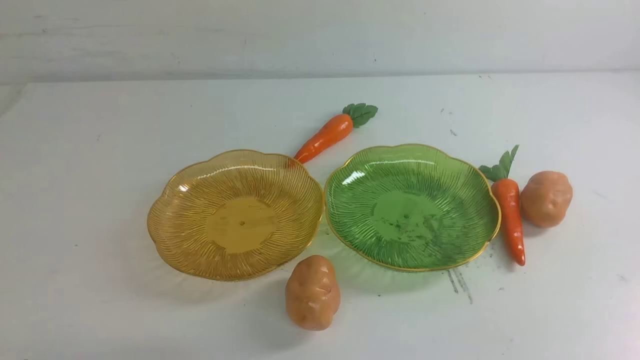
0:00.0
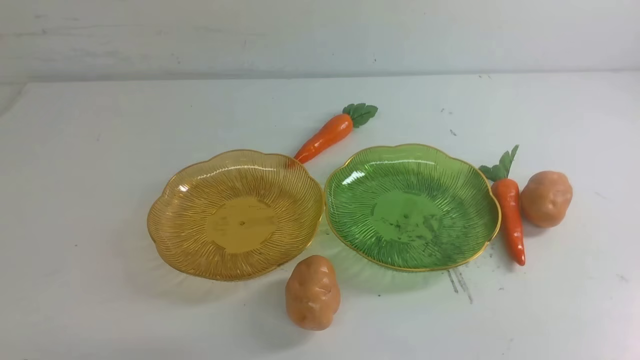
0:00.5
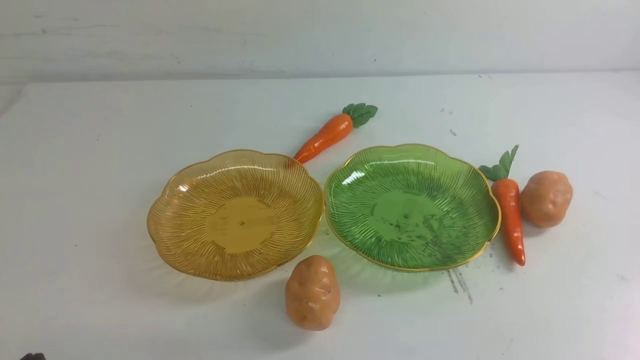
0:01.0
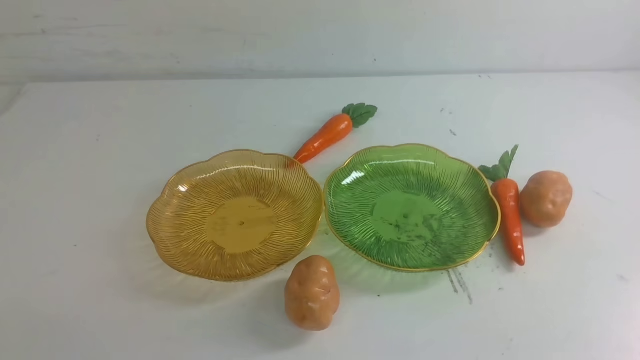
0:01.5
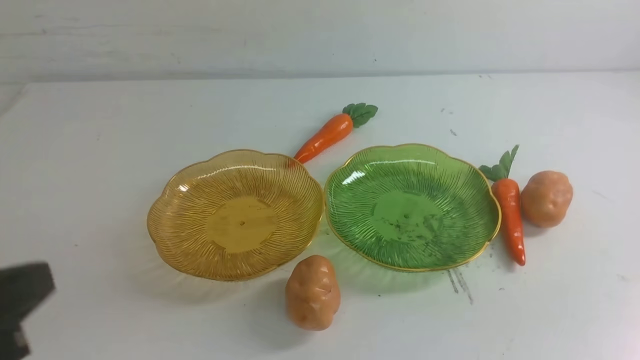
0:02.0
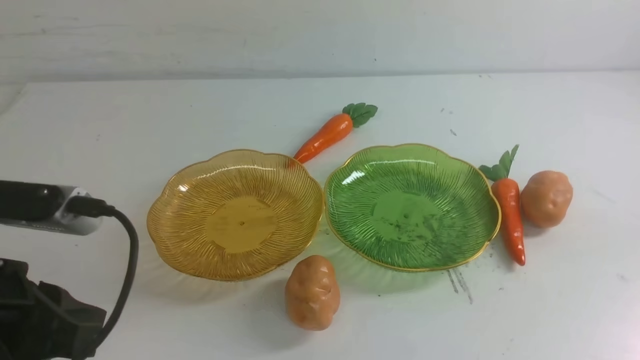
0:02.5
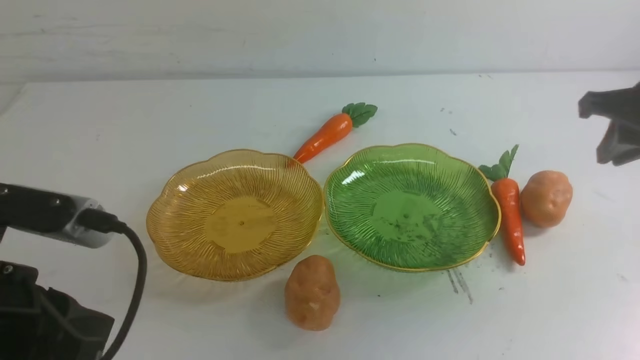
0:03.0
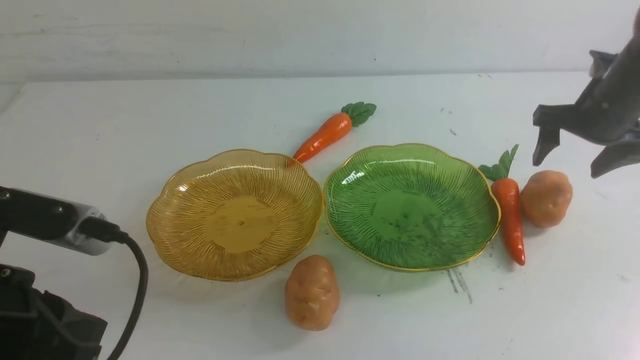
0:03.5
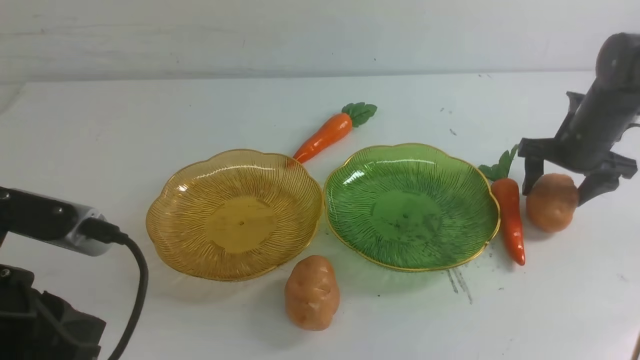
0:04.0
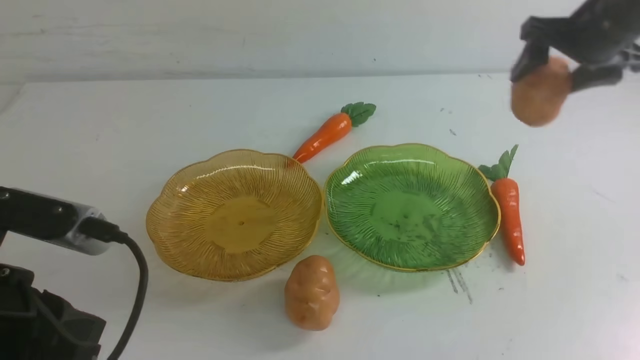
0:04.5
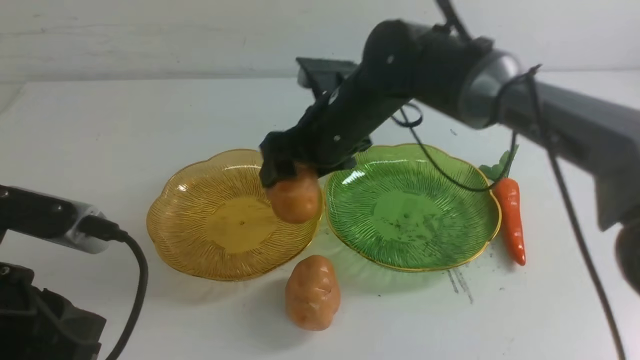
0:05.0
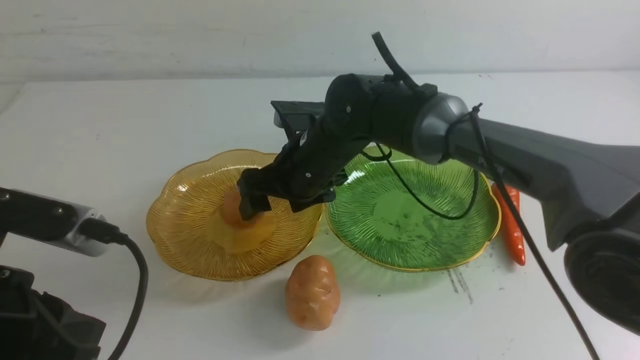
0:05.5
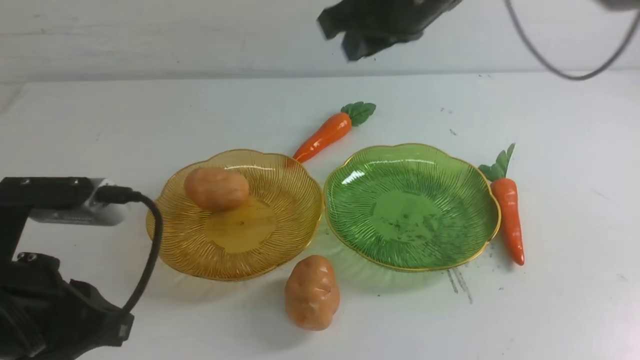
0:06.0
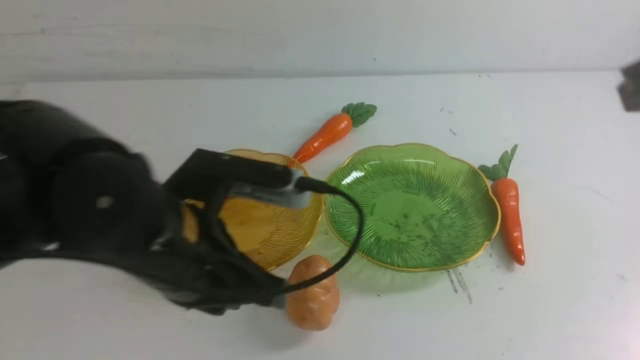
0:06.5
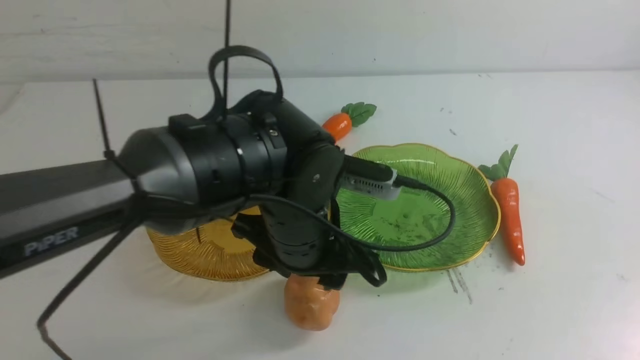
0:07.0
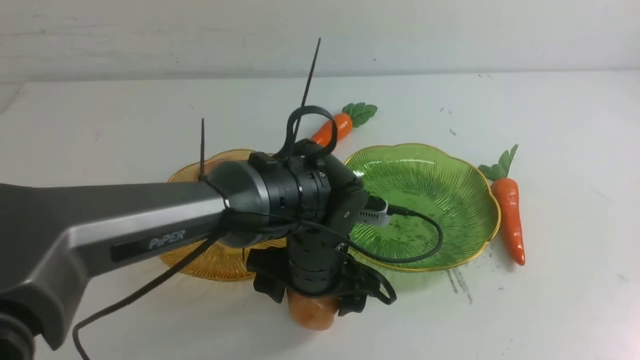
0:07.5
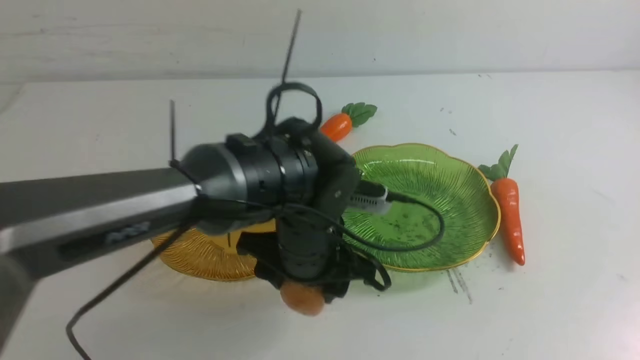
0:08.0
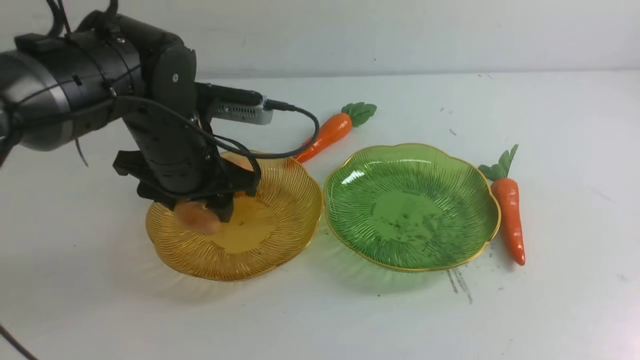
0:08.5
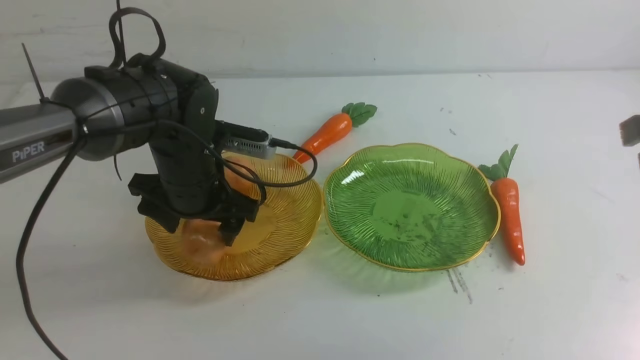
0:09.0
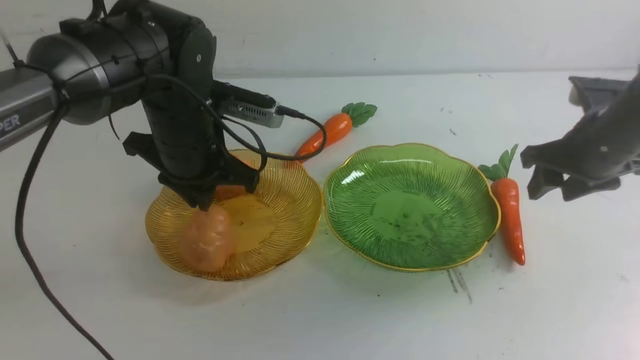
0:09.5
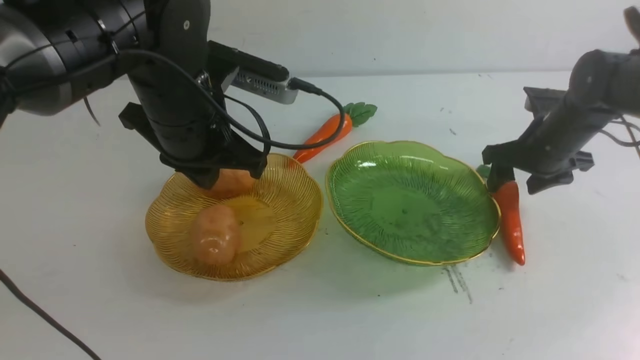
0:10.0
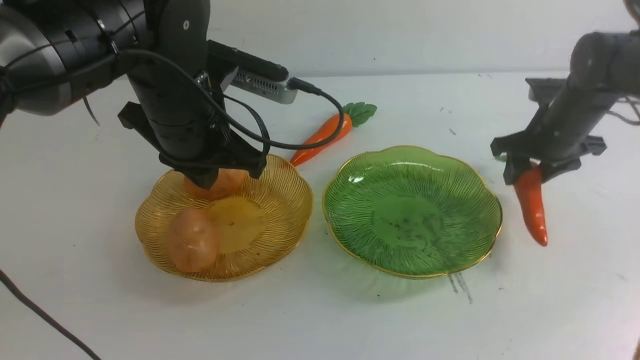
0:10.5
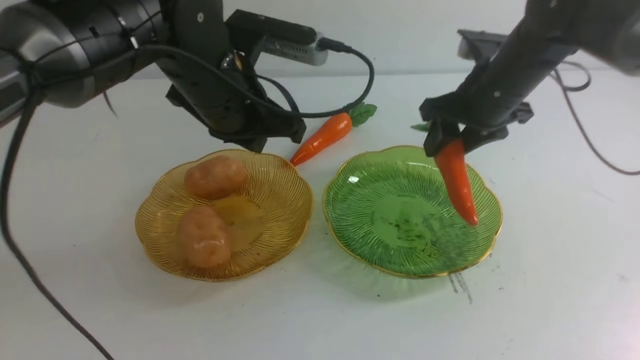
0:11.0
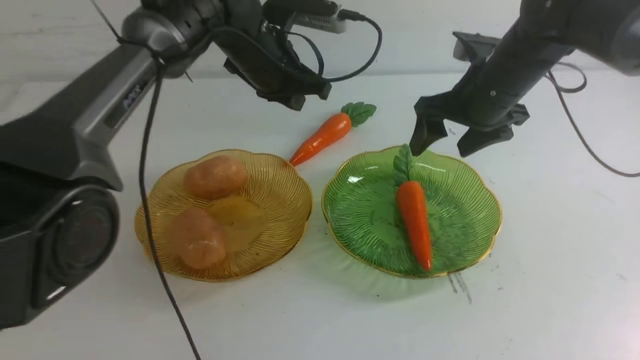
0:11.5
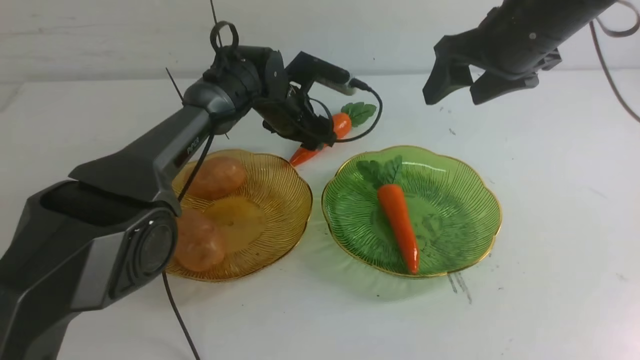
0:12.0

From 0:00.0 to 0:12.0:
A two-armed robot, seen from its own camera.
Step, from 0:00.0 to 0:05.5: Grab a potato with your right arm and put it on the left plate.
Step, from 0:06.0 to 0:09.0: Grab a potato with your left arm and put it on the left plate.
Step, from 0:09.5 to 0:11.5: use the right arm to grab a carrot and put it into the right plate.
From 0:02.0 to 0:04.0: The right gripper travels forward by approximately 40 cm, and opens up.
From 0:04.0 to 0:06.0: The right gripper is displaced to the left and upward by roughly 30 cm.
From 0:06.0 to 0:08.0: The left gripper shifts some 25 cm to the right, forward and downward, and opens, while the right gripper heads backward and to the right, covering approximately 35 cm, and closes its fingers.
From 0:08.0 to 0:10.0: The left gripper heads upward and to the left, covering roughly 15 cm, and closes up; the right gripper shifts about 40 cm forward and downward, and opens its fingers.
From 0:10.0 to 0:12.0: The right gripper is displaced upward and to the left by some 20 cm, while the left gripper moves forward and downward, roughly 20 cm, and opens up.

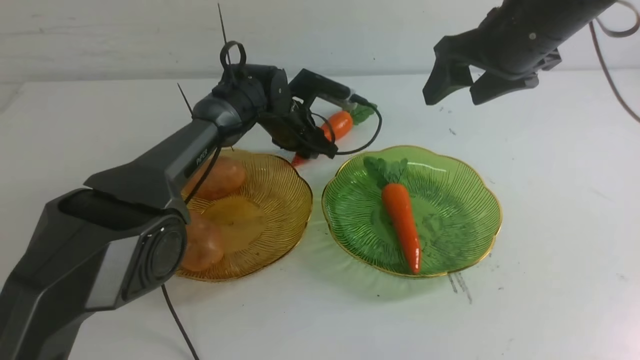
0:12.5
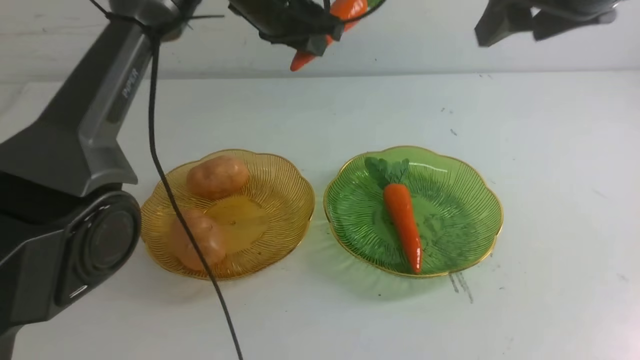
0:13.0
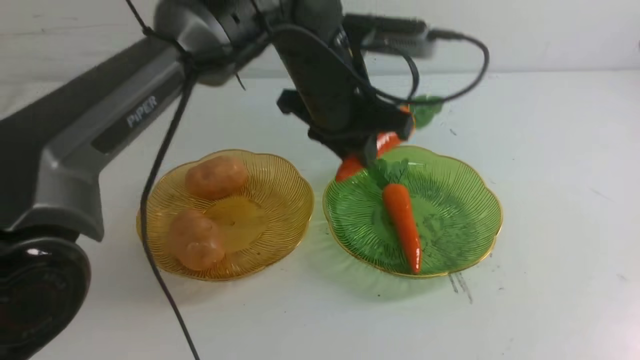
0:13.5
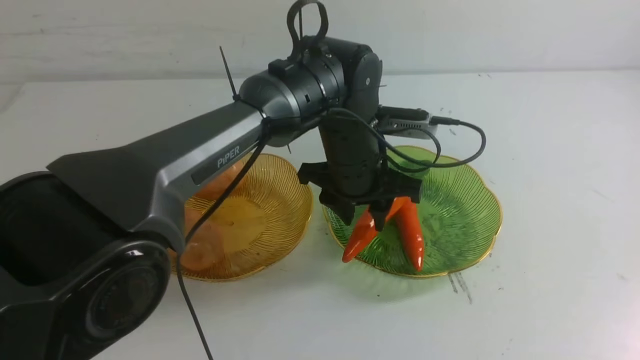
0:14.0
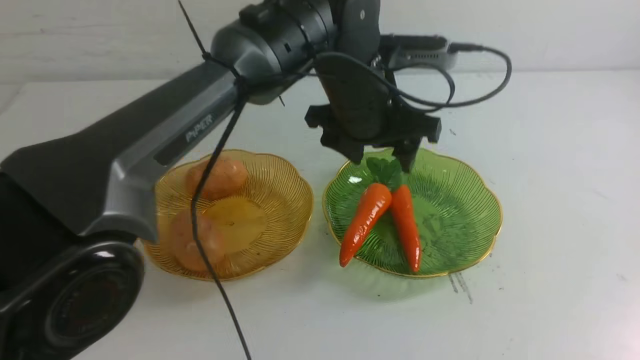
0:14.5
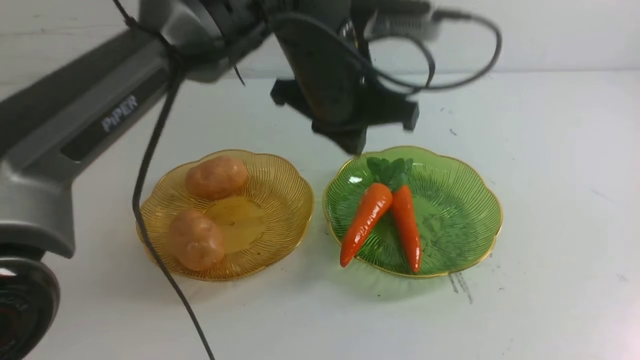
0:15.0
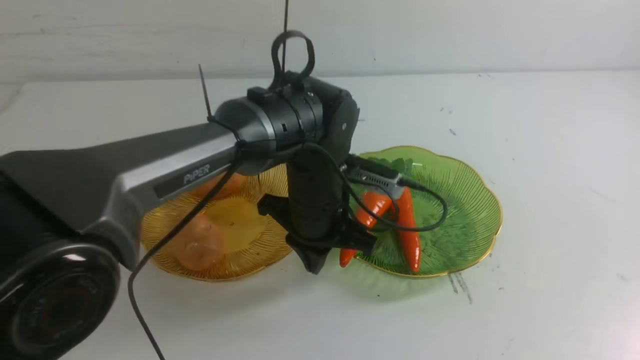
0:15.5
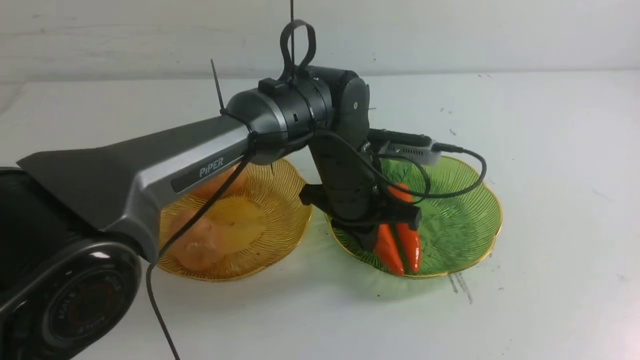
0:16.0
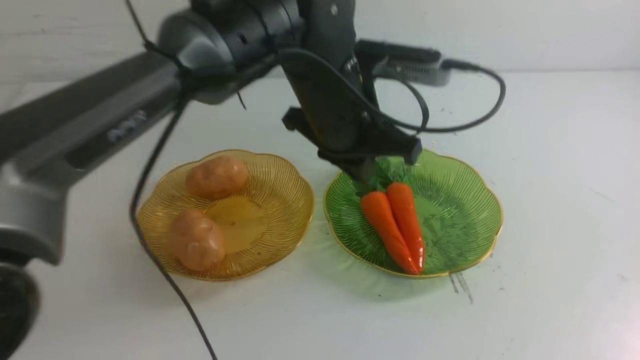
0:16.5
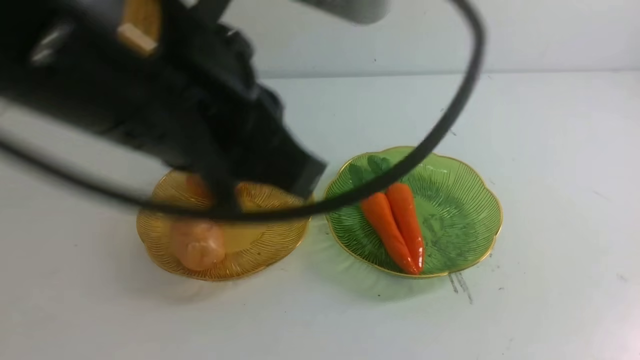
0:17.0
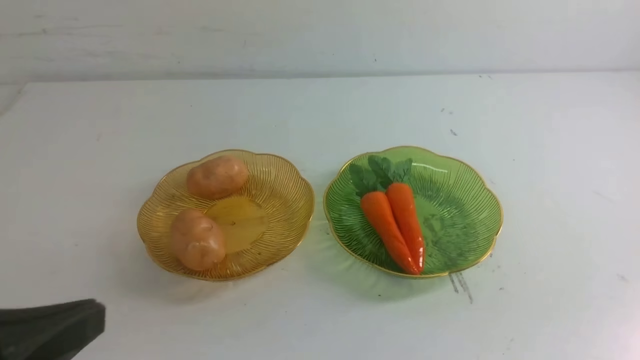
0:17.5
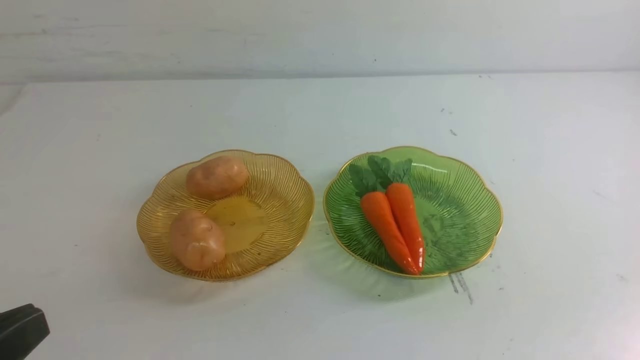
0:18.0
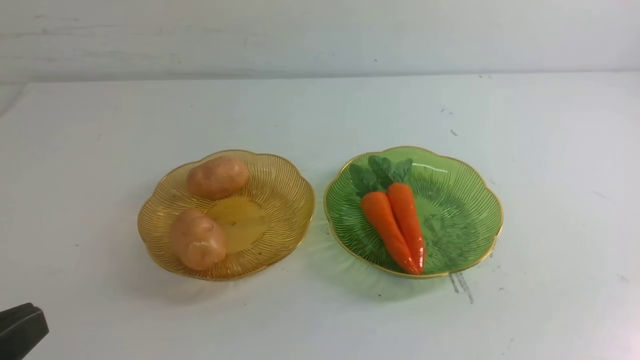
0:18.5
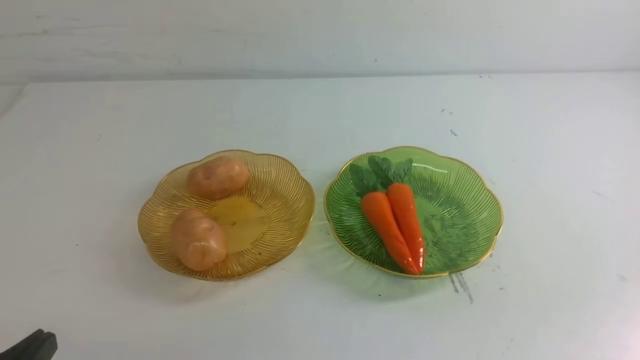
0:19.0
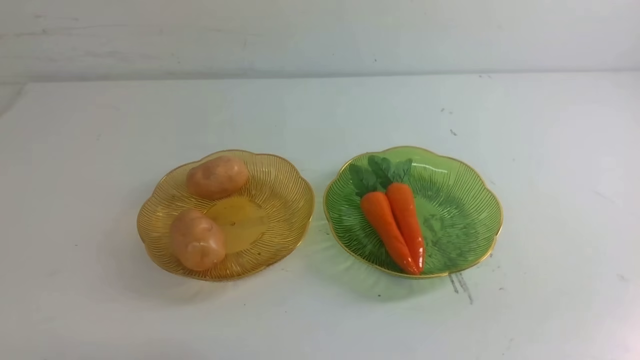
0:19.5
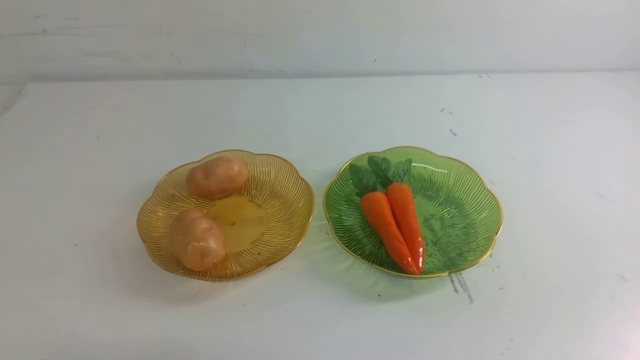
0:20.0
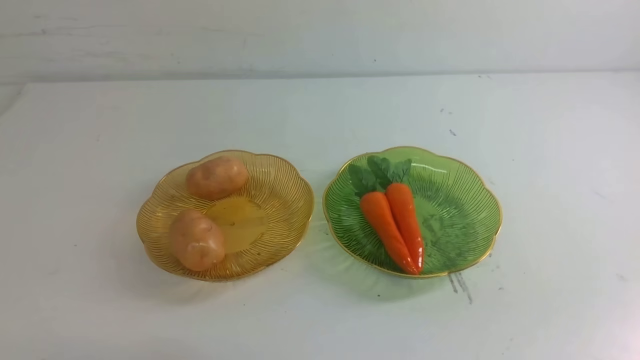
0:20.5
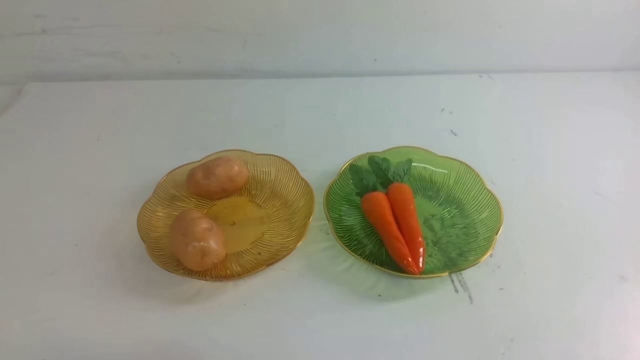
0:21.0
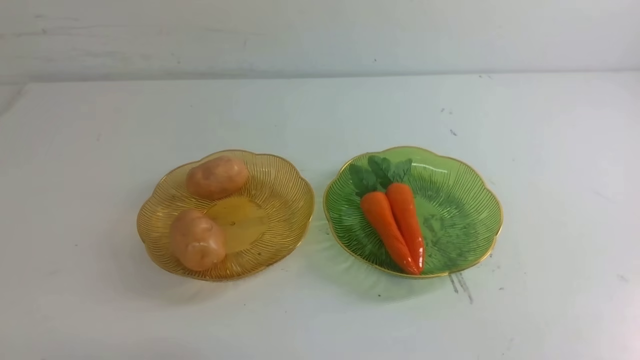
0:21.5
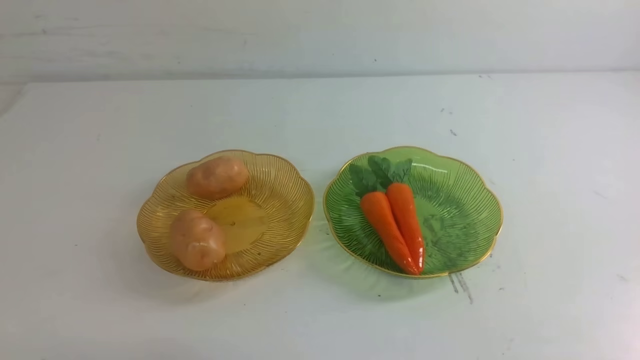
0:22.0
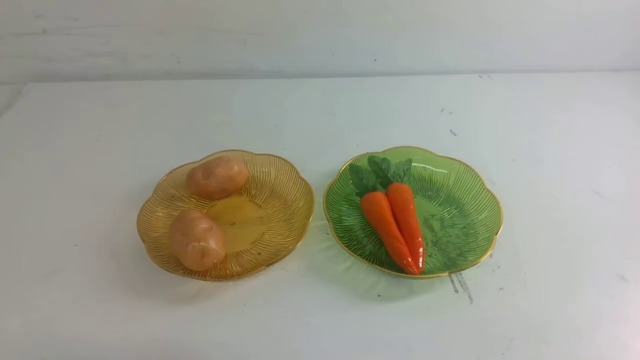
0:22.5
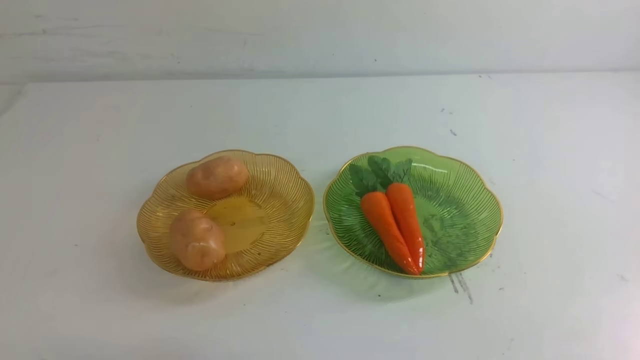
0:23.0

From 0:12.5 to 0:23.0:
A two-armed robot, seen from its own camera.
Step, from 0:12.5 to 0:14.5: use the left arm to grab a carrot and put it into the right plate.
From 0:12.5 to 0:14.5: The left gripper moves up and down over roughly 15 cm, changing direction 2 times. Meanwhile the right gripper goes some 30 cm backward and upward, and closes.
From 0:14.5 to 0:16.5: The right gripper is displaced backward by approximately 10 cm. The left gripper reaches some 15 cm downward, then returns, and closes.
From 0:16.5 to 0:19.0: The right gripper heads downward, covering roughly 15 cm. The left gripper heads backward and to the left, covering some 40 cm.
